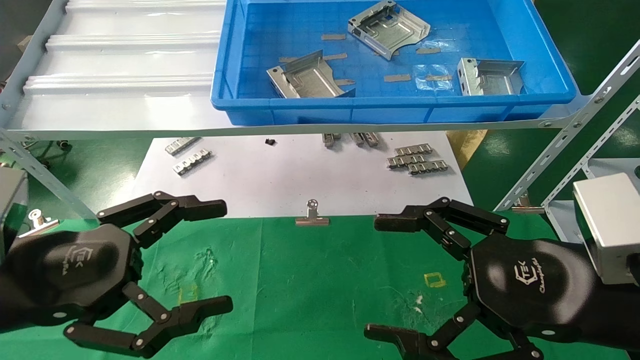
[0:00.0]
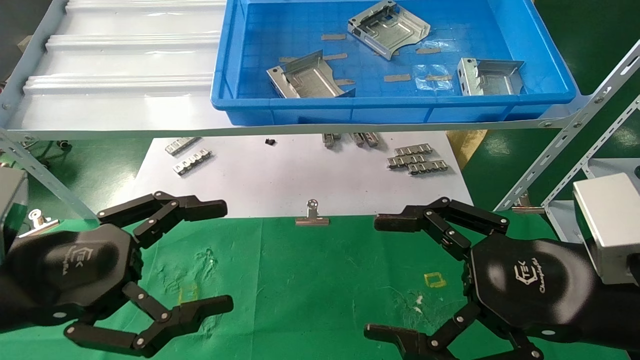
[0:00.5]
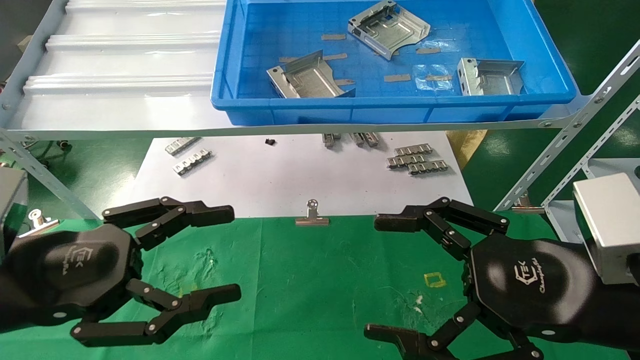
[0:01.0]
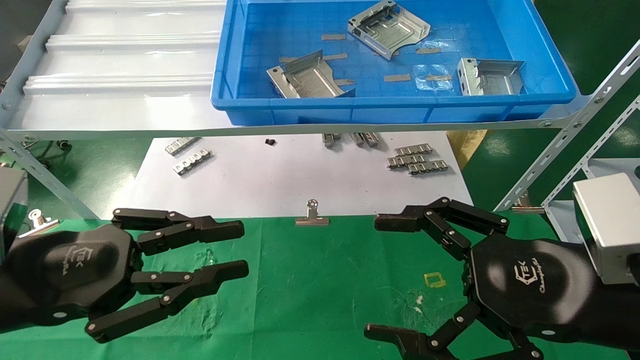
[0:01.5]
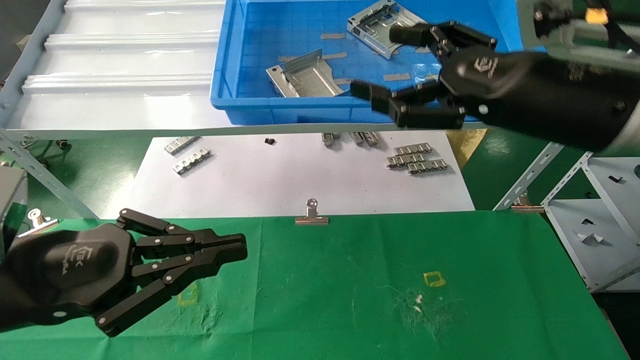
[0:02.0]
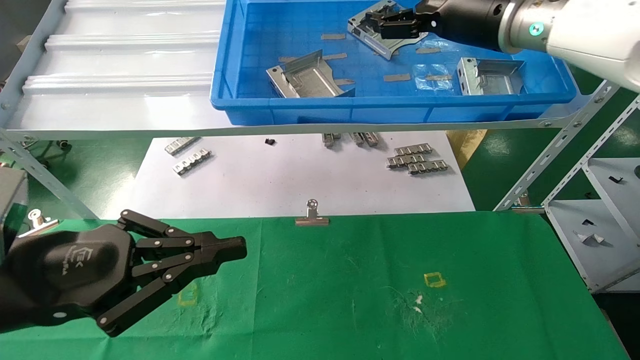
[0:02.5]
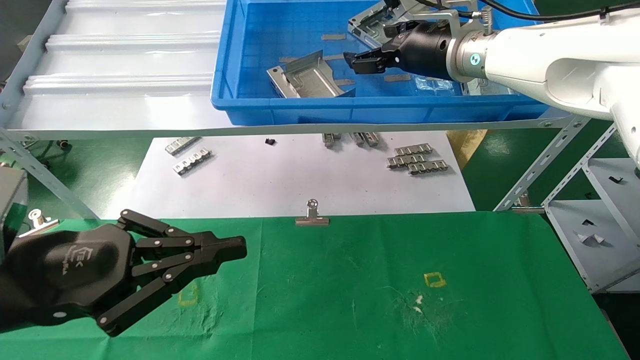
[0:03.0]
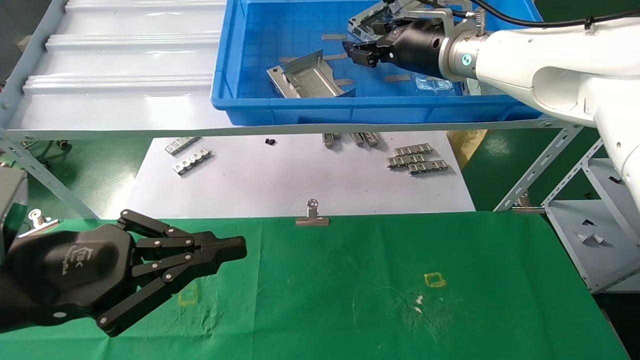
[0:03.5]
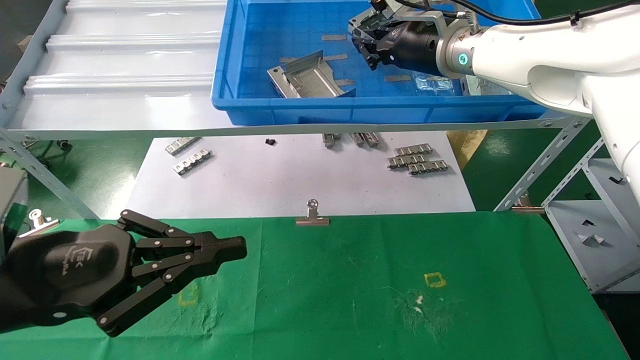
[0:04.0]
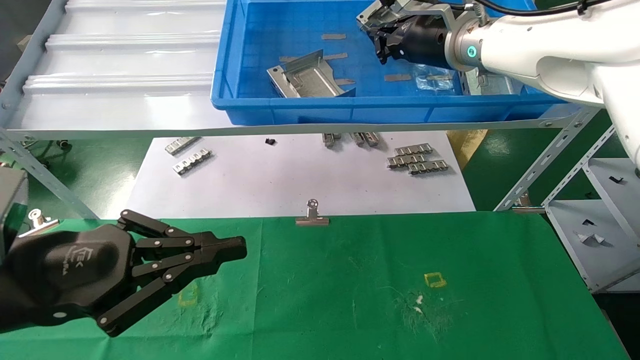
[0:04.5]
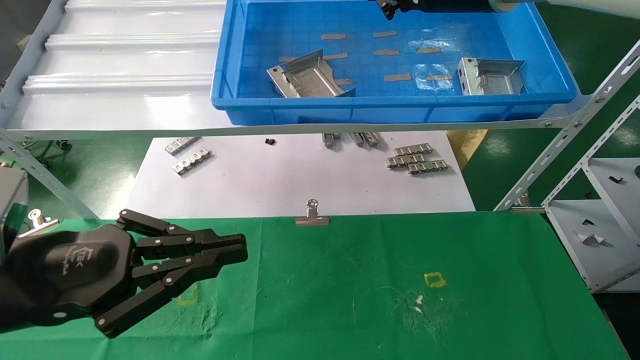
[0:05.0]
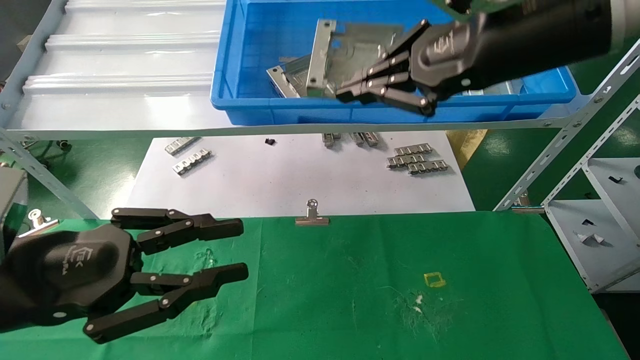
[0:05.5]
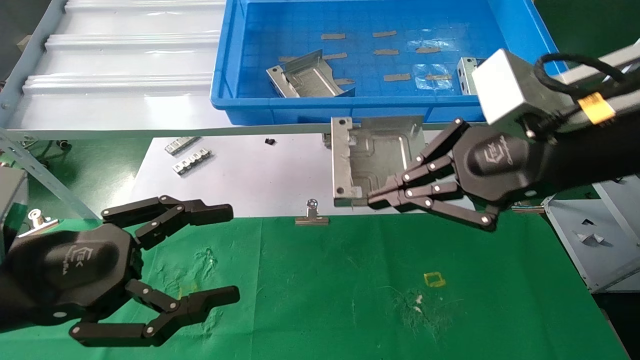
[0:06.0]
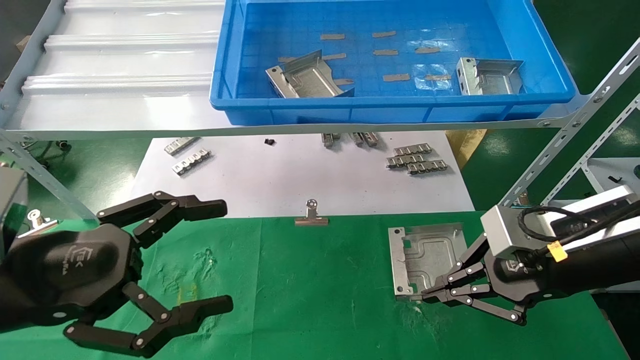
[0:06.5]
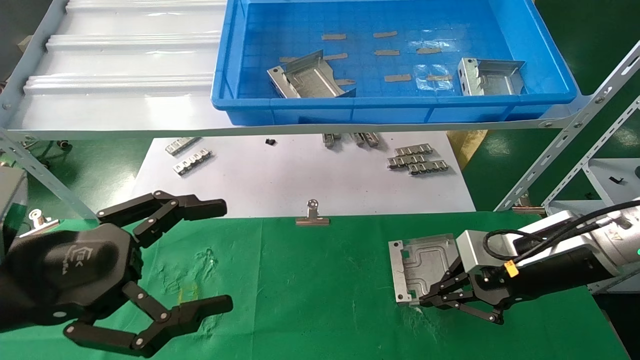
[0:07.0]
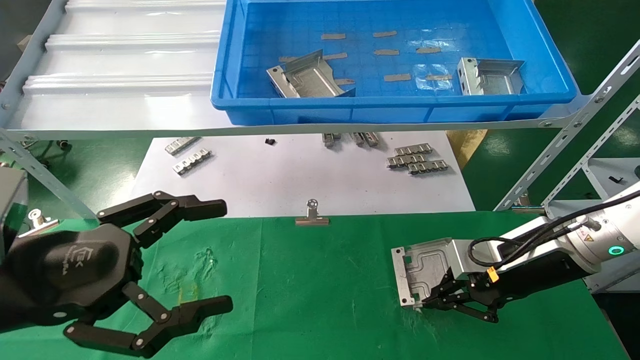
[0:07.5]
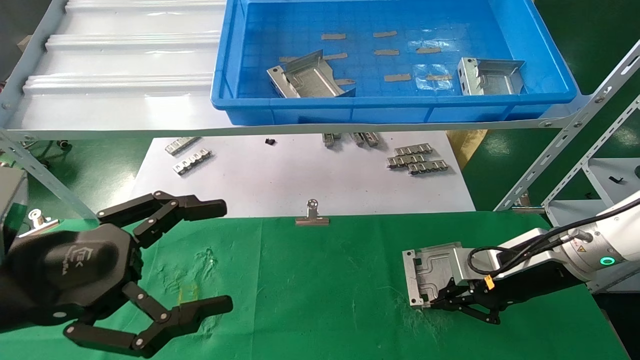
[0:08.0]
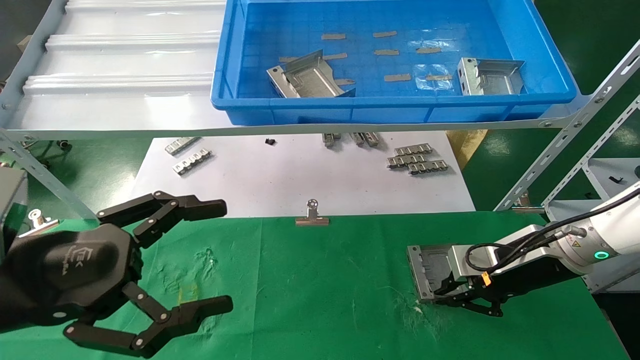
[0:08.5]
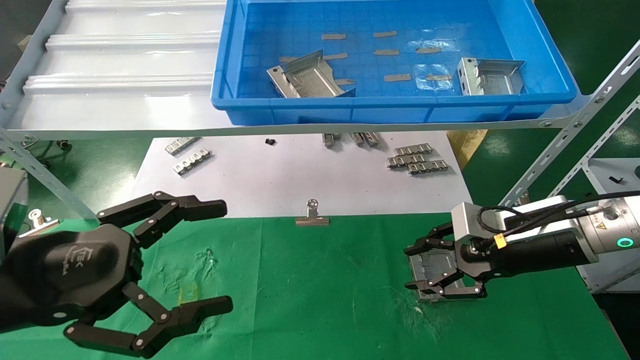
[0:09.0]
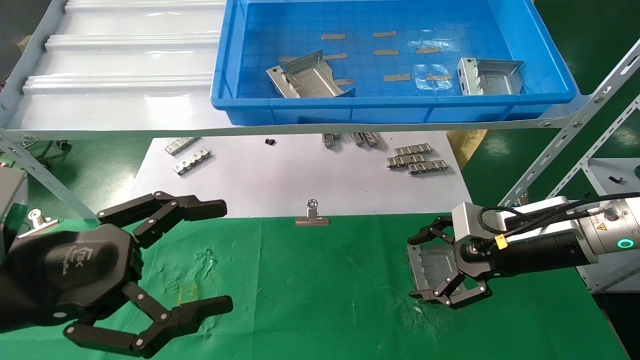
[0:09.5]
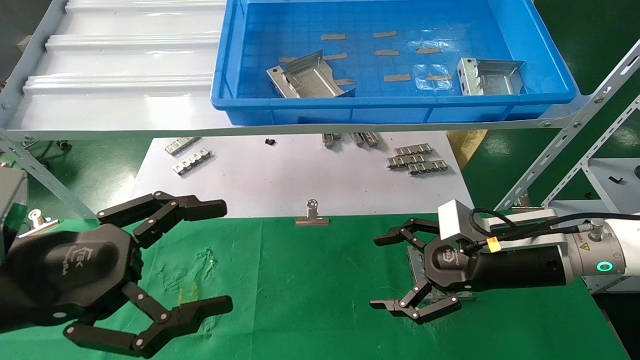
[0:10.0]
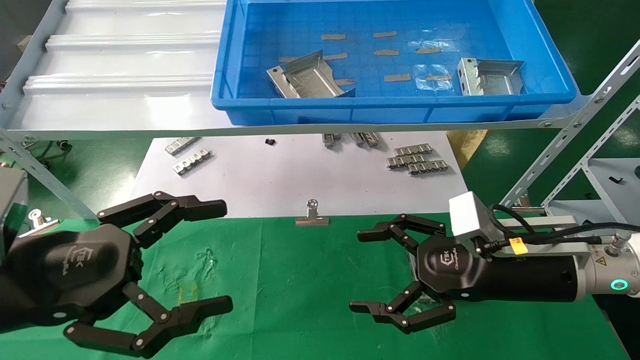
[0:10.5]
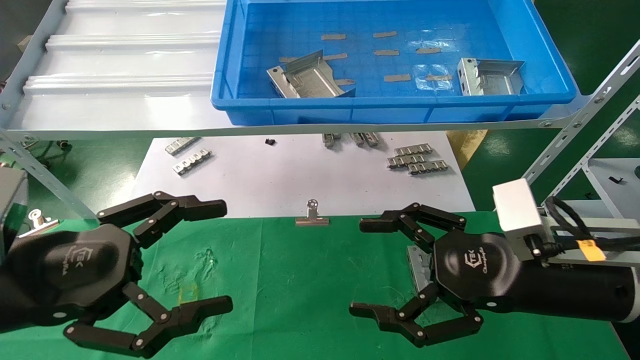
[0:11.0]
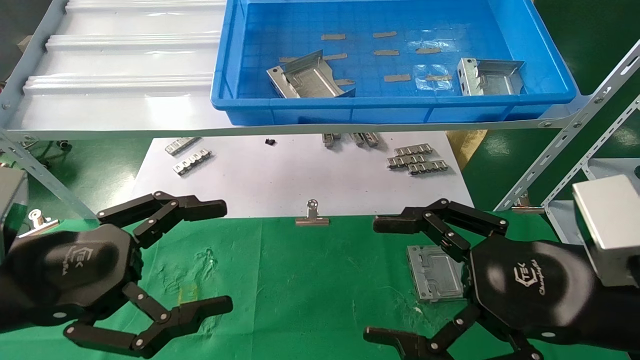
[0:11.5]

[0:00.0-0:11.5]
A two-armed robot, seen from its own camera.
Task of the whole recording: use the mechanical arm to pick up the parts and place them on the table.
Step, 0:02.0 to 0:05.5: Pick up the hard drive bracket from the feeding area.
Step, 0:06.0 to 0:09.0: Place the hard drive bracket into the box.
0:00.0 to 0:02.0: The left gripper closes. Meanwhile the right gripper travels upward and forward by some 15 cm.
0:02.0 to 0:04.0: The right gripper shifts some 20 cm forward and to the left, and closes up.
0:04.0 to 0:06.0: The right gripper shifts roughly 20 cm backward.
0:06.0 to 0:07.5: The right gripper is displaced downward and forward by some 20 cm. Meanwhile the left gripper opens its fingers.
0:07.5 to 0:09.5: The right gripper opens its fingers.
0:09.5 to 0:11.5: The right gripper travels backward by some 15 cm.
